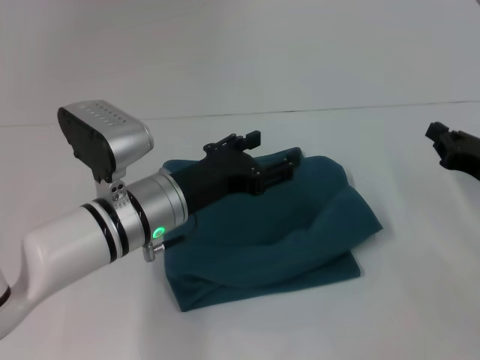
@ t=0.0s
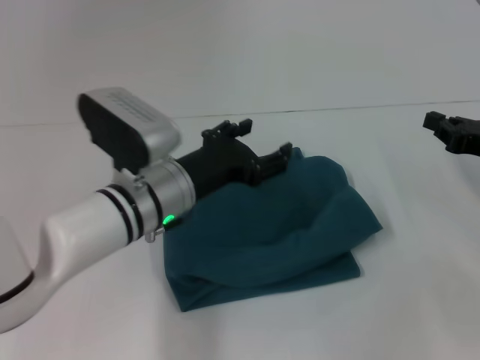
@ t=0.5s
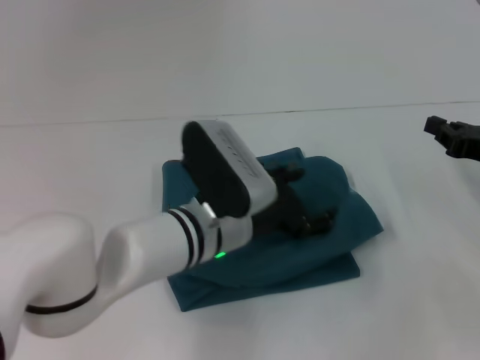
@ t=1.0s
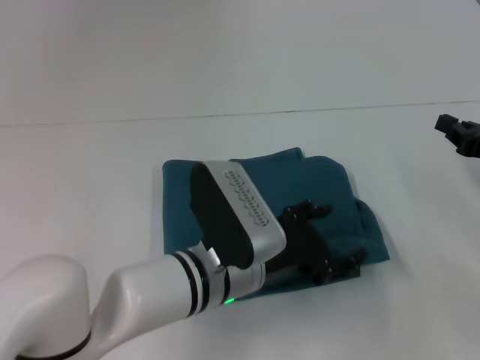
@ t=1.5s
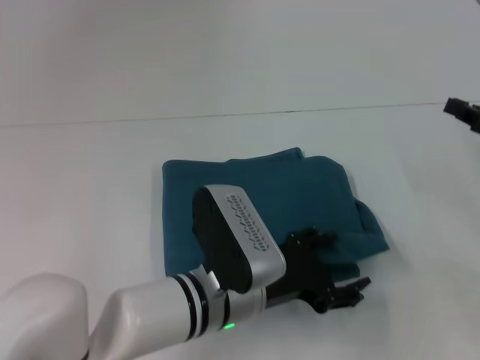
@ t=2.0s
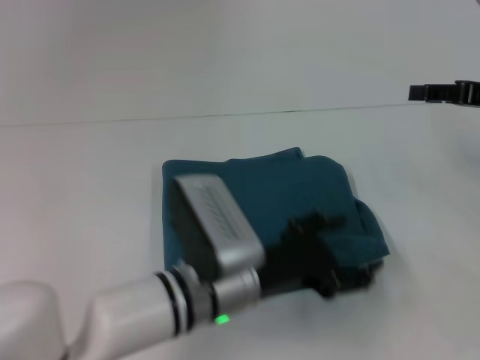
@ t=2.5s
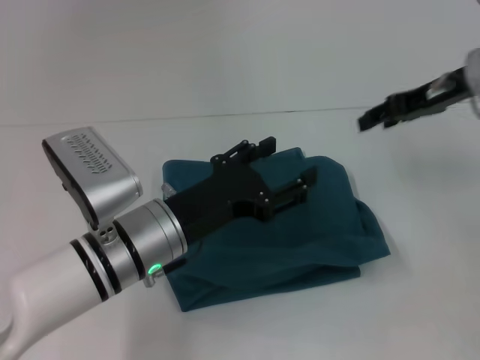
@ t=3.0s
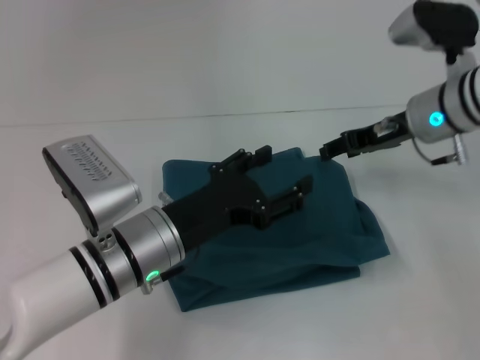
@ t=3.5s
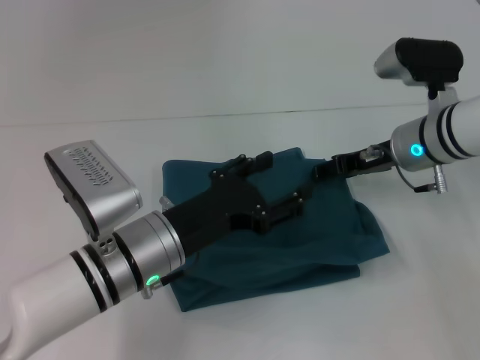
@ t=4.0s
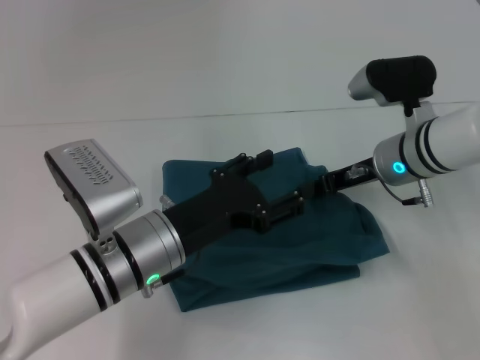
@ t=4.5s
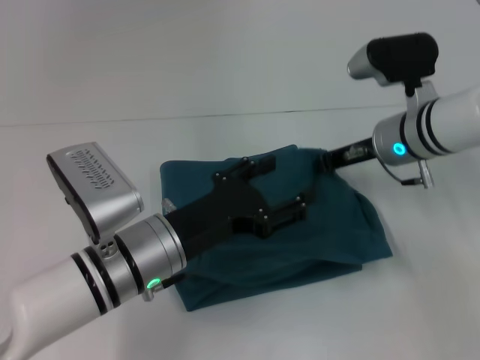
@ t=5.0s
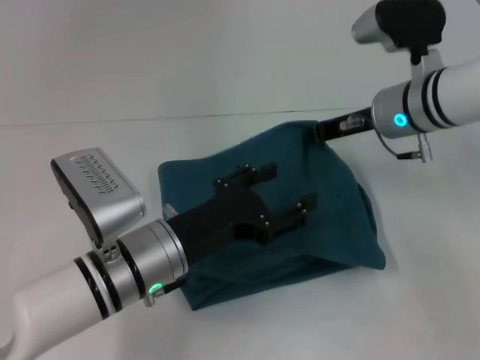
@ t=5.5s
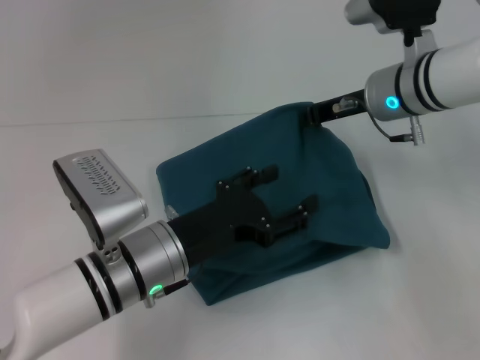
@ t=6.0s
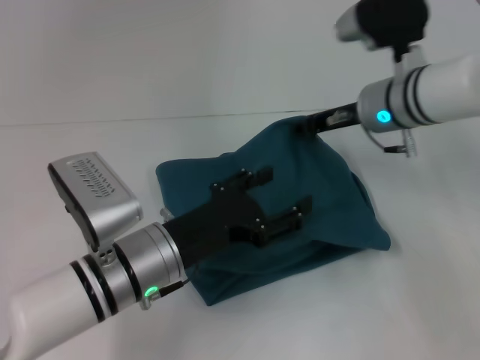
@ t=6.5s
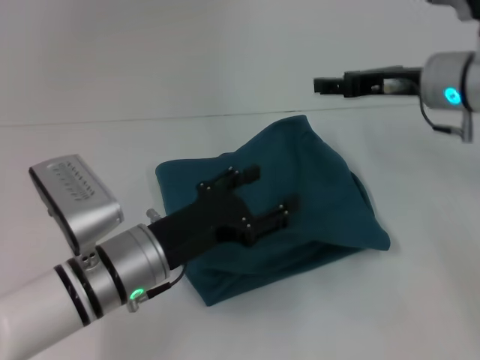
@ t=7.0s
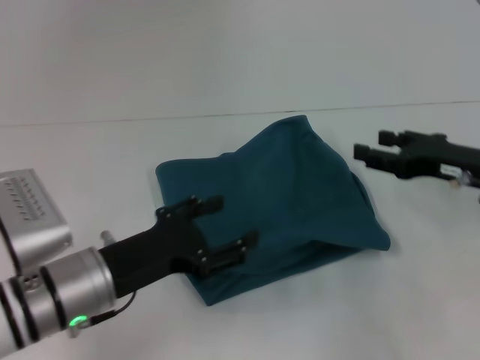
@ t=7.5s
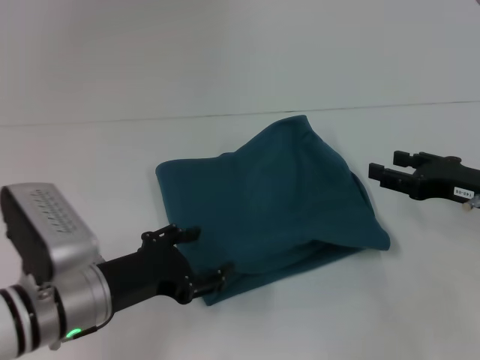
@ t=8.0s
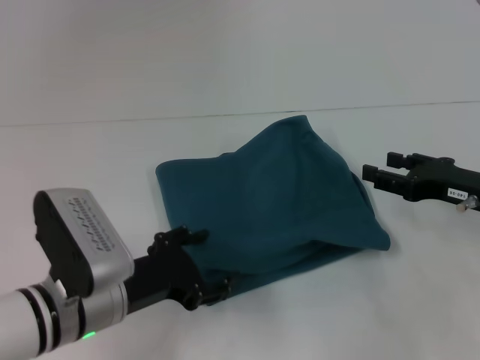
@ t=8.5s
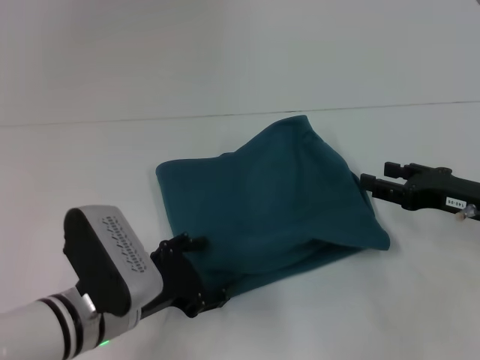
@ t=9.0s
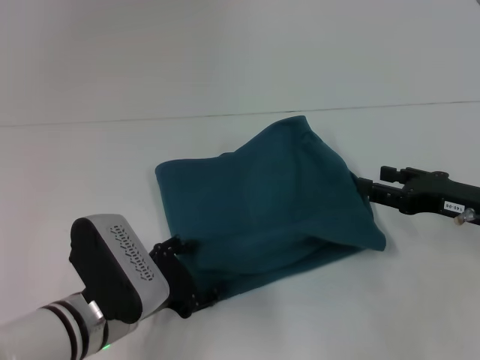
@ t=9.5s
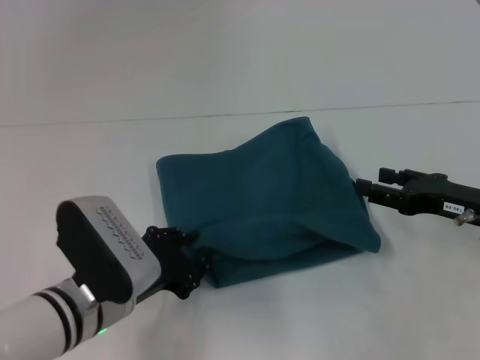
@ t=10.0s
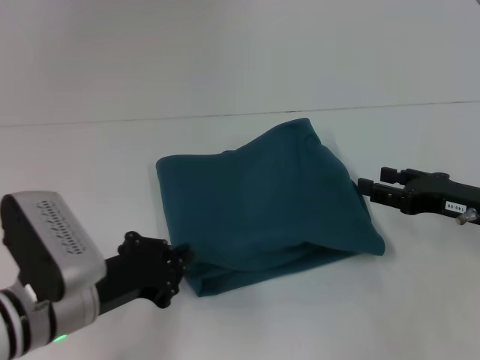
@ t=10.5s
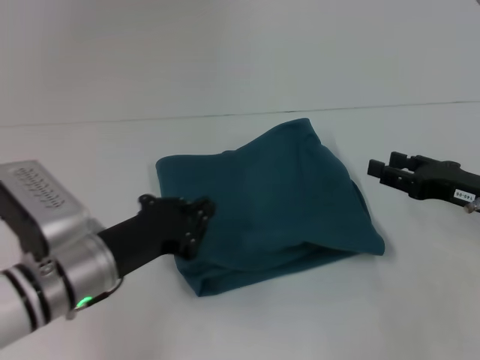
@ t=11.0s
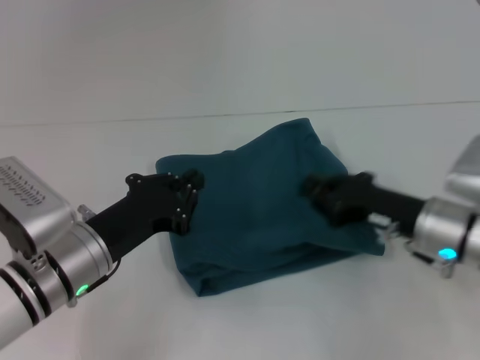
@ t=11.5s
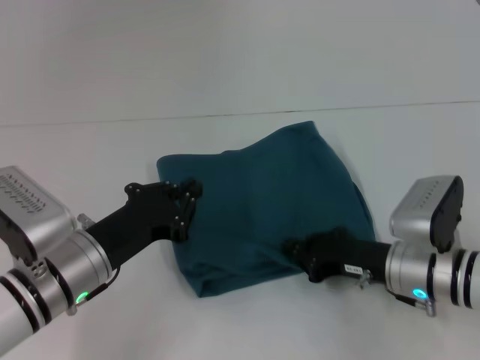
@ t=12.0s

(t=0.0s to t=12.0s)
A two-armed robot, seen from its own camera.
t=0.0s - t=2.0s: The right gripper goes about 5 cm upward. The left gripper moves to the right and backward, roughly 10 cm.
t=2.0s - t=4.0s: The left gripper goes some 5 cm to the left. Meanwhile the right gripper shifts about 15 cm to the left and forward, and opens.
t=4.0s - t=6.0s: The right gripper heads upward, covering approximately 5 cm, and closes.
t=6.0s - t=8.0s: The right gripper is displaced to the right, backward and downward by approximately 20 cm, and opens its fingers. The left gripper is displaced to the left by some 5 cm.
t=10.0s - t=12.0s: The right gripper heads to the left and downward, covering about 10 cm, and closes up, while the left gripper closes.

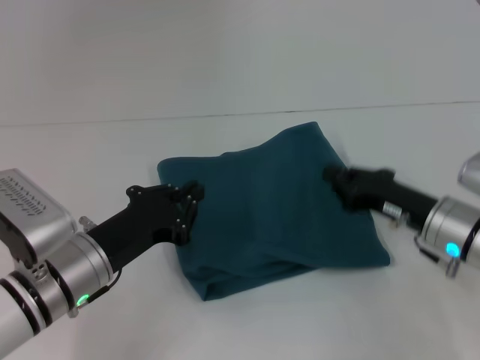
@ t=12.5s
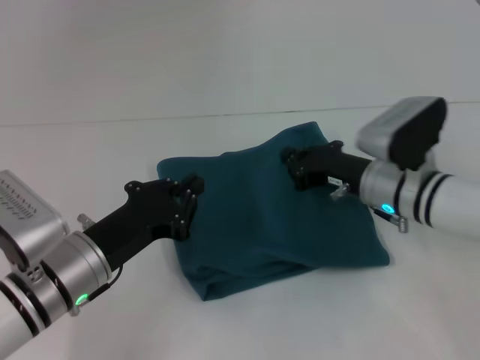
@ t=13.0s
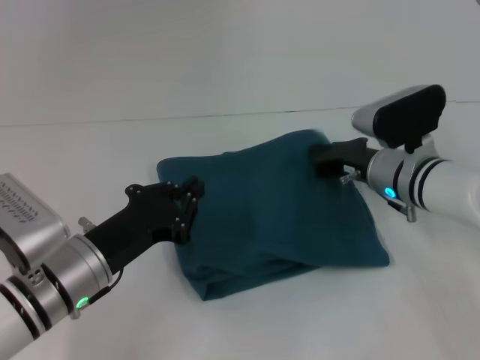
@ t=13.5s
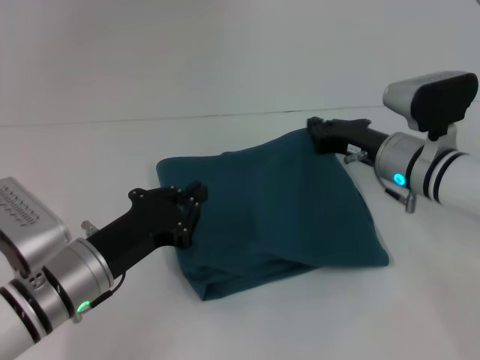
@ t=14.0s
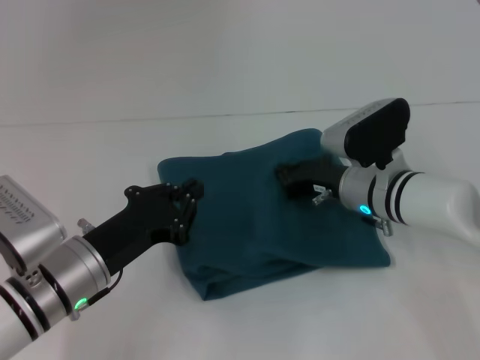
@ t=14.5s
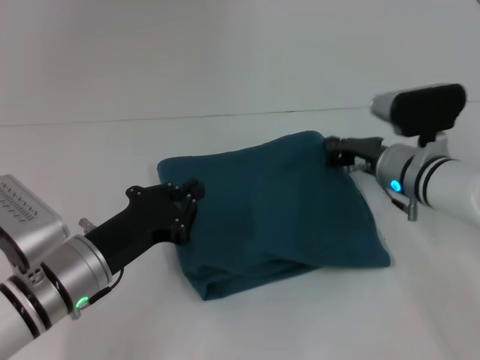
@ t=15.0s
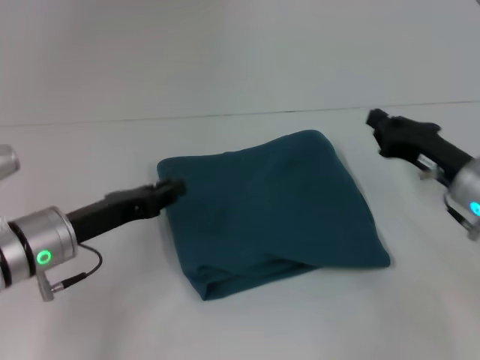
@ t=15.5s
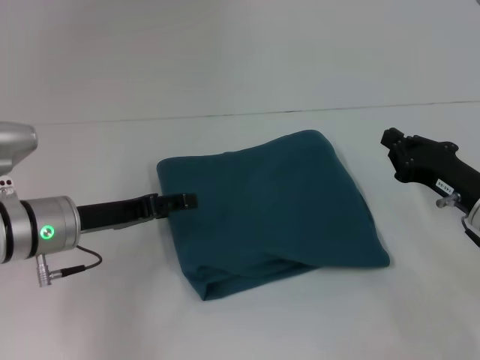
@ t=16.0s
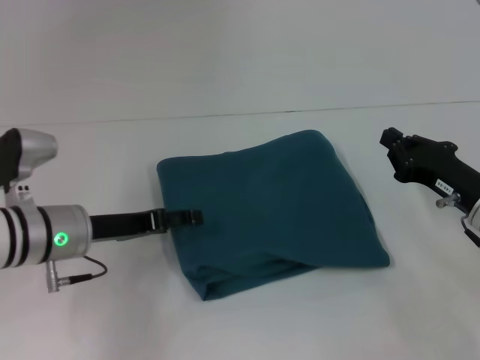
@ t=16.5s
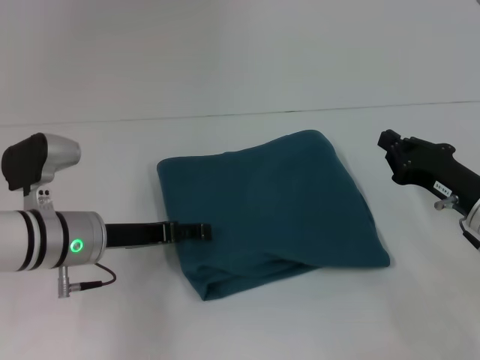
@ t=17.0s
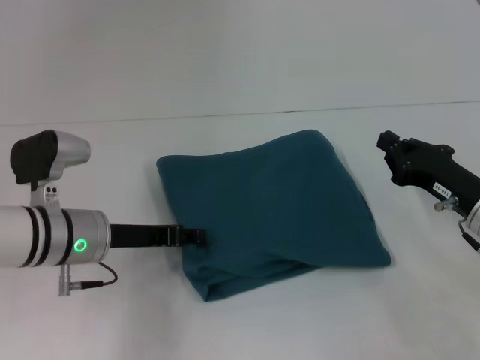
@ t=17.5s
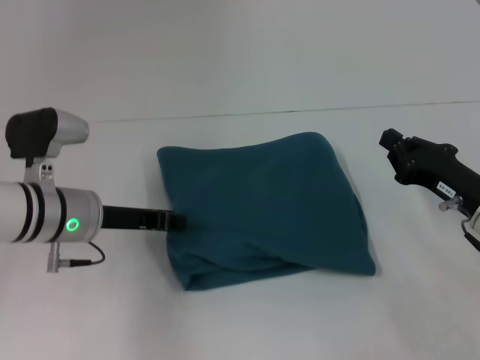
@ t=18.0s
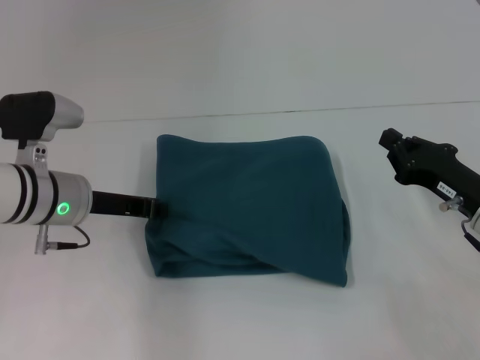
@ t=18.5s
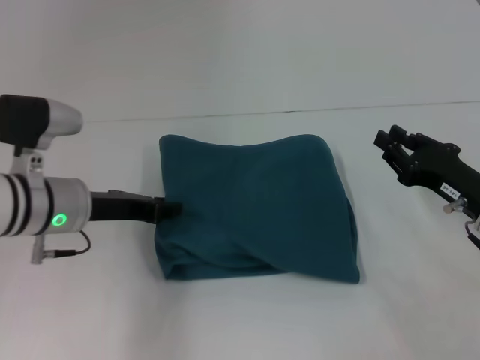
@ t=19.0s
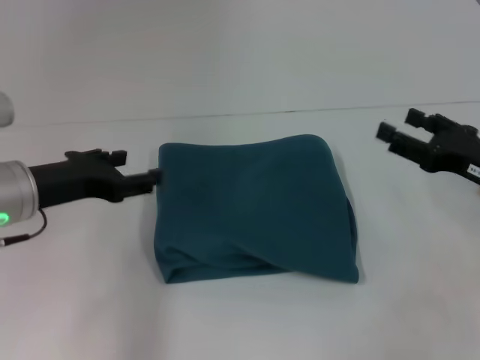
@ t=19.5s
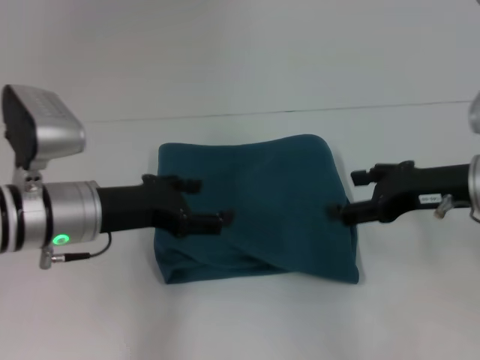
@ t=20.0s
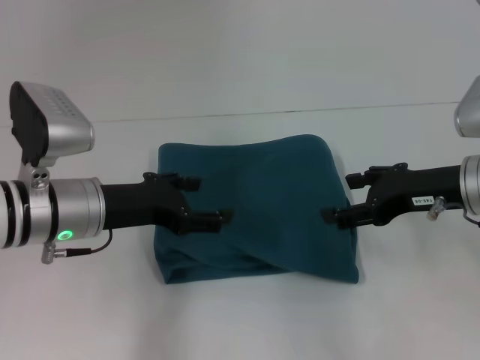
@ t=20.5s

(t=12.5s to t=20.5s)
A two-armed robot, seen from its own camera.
t=12.5s - t=14.5s: The right gripper shifts approximately 10 cm to the left and forward.
t=14.5s - t=16.5s: The left gripper goes about 5 cm forward, and opens, while the right gripper travels to the right and backward by about 15 cm.
t=16.5s - t=18.5s: The left gripper closes up.
t=18.5s - t=20.5s: The left gripper shifts by about 5 cm, and opens up, while the right gripper shifts about 10 cm upward, and opens.
